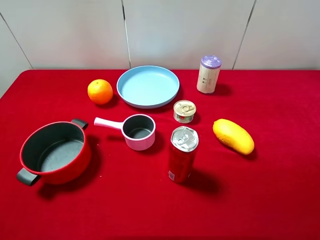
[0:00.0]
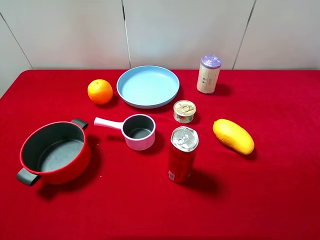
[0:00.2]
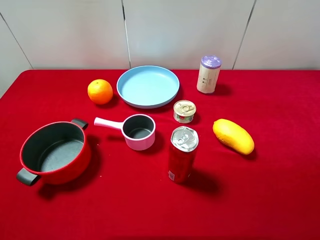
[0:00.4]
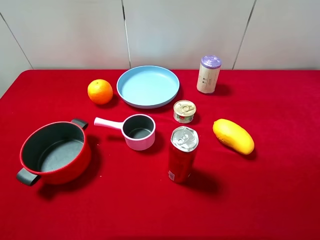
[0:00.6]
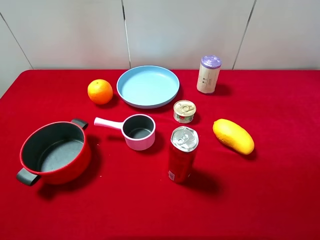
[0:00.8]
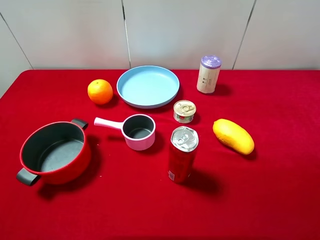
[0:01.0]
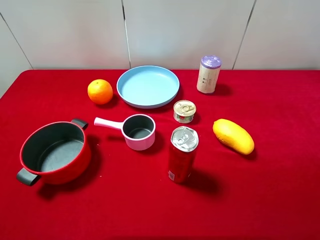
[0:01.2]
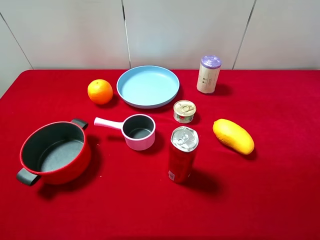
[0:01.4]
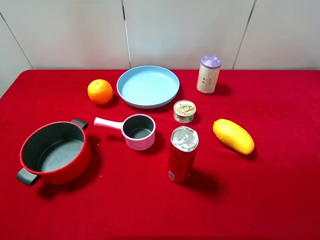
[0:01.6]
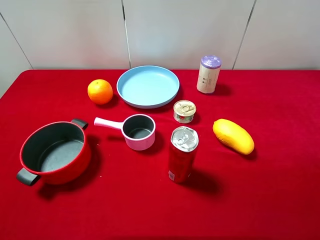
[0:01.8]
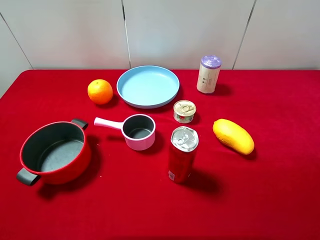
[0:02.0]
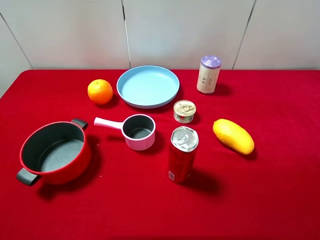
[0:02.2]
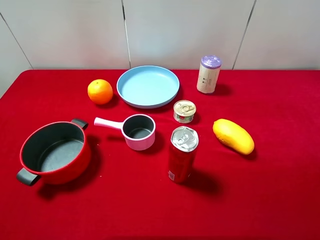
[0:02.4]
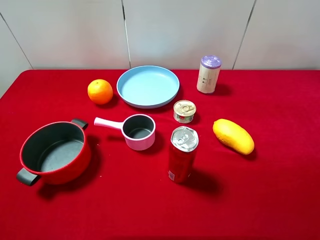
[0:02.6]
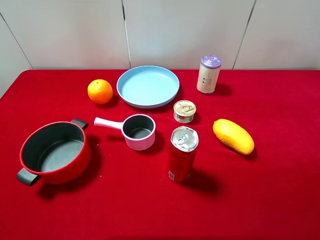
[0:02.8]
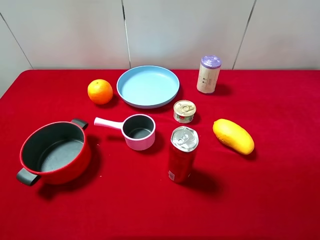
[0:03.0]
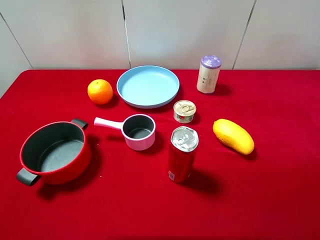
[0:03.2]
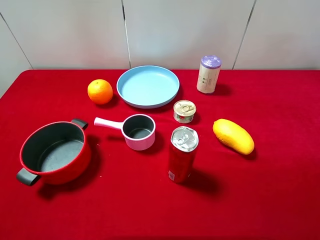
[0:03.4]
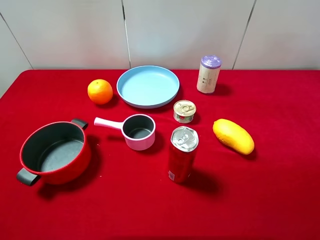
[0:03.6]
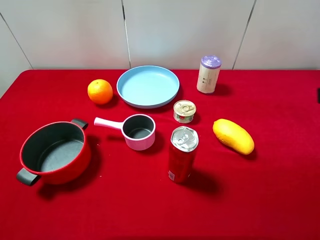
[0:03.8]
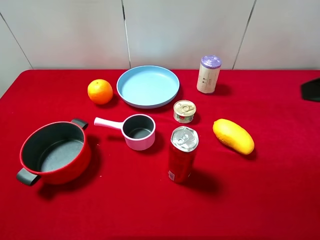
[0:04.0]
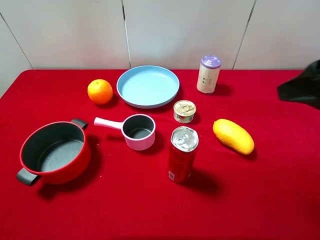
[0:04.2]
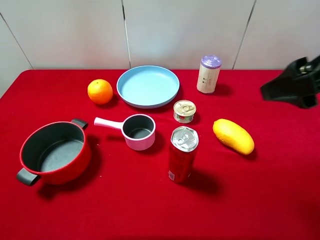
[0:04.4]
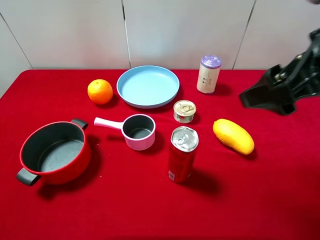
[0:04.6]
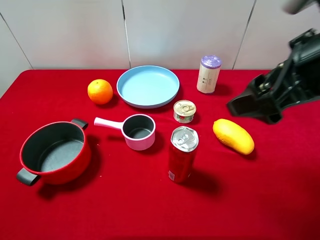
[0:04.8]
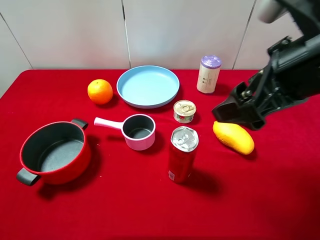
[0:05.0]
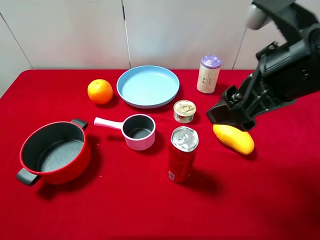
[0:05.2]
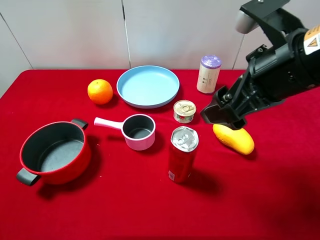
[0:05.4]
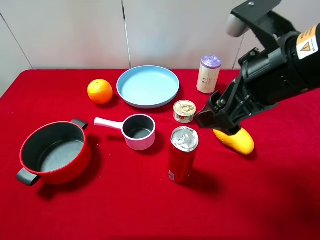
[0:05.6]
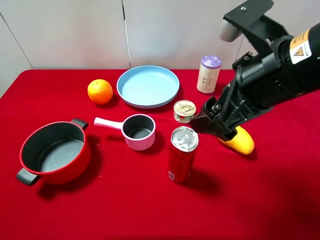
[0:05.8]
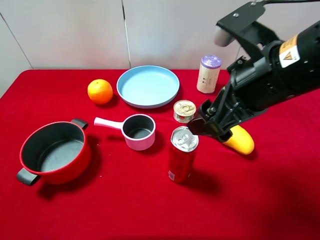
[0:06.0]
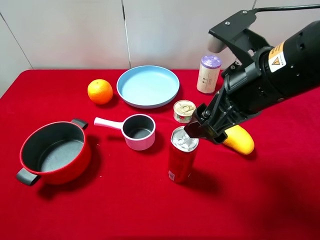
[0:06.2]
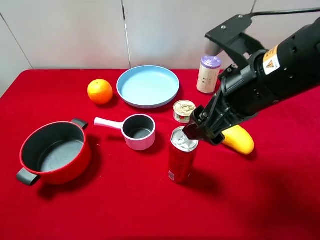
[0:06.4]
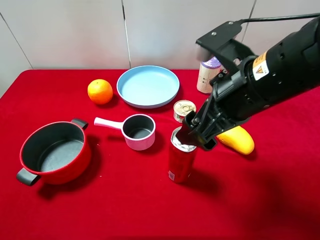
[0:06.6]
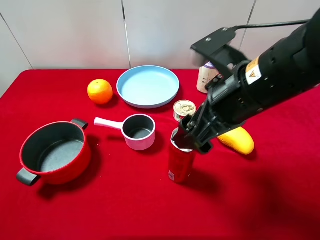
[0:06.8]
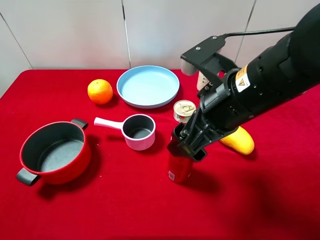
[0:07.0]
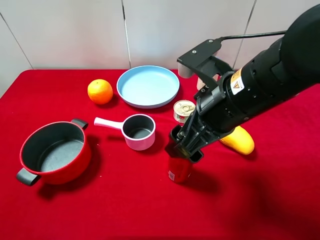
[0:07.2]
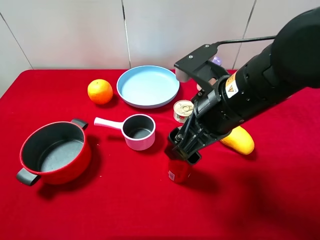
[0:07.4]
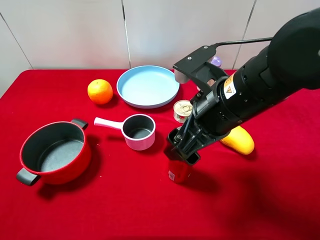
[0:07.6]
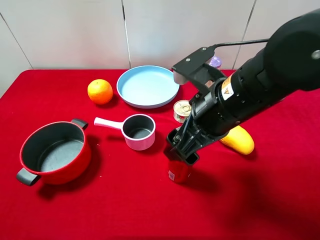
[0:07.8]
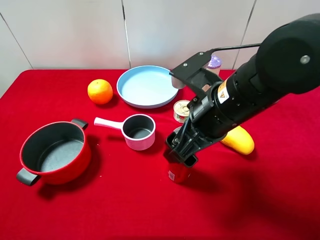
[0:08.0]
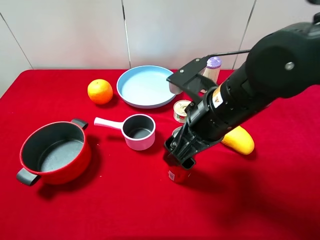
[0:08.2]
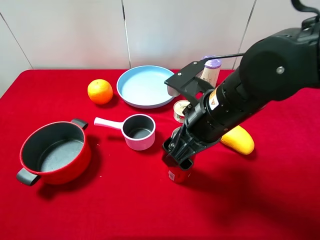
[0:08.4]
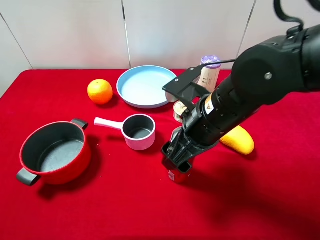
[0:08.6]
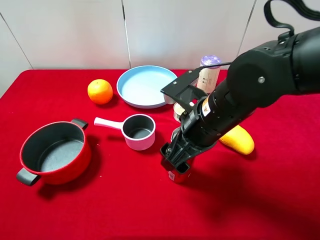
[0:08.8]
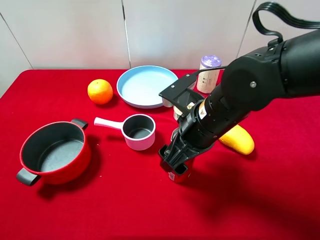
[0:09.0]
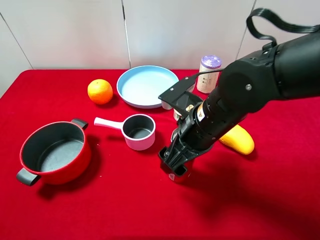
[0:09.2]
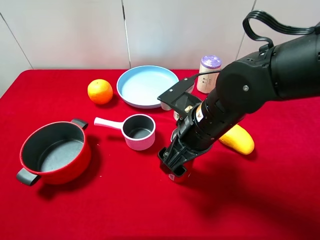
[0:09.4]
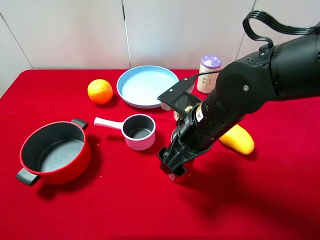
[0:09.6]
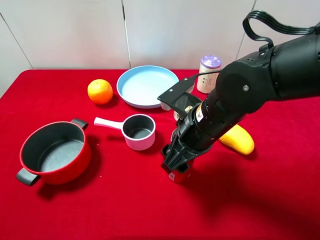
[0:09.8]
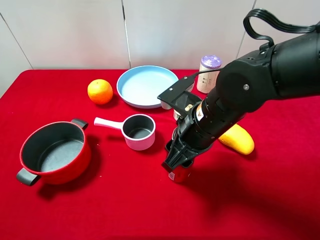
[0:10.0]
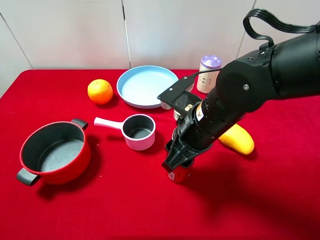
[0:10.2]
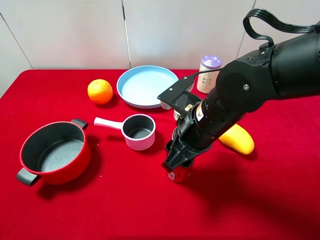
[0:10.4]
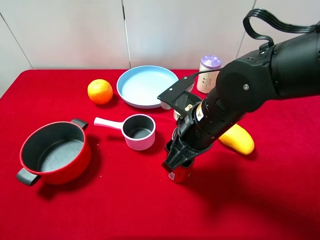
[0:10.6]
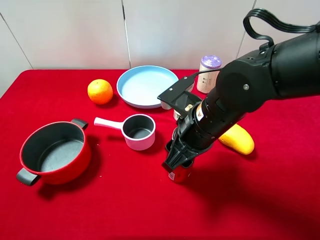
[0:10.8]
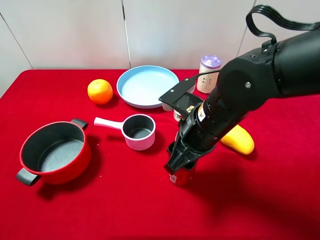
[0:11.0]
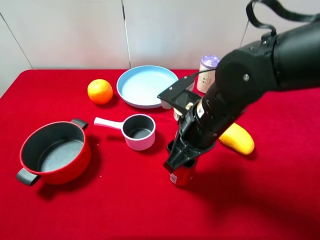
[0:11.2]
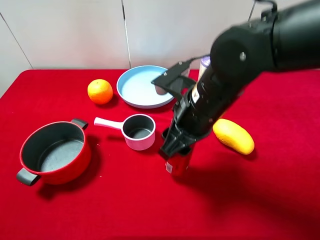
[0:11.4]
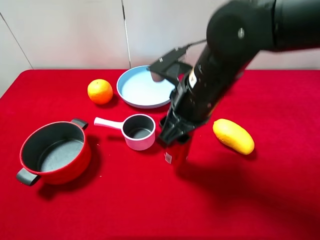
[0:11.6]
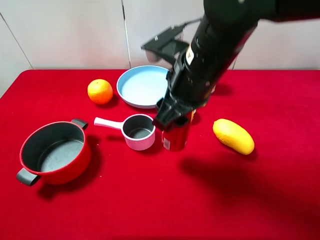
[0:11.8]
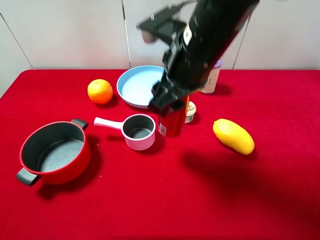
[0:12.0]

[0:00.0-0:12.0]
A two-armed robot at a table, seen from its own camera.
Task of the whole recording: pick up an item with a gripper and place it in a random container on the desktop.
0:00.0 to 0:01.6: The two grippers keep their place.
0:03.0 to 0:04.4: The right gripper goes roughly 10 cm forward and to the left.
0:04.4 to 0:06.0: The right gripper goes about 10 cm to the left.
0:06.0 to 0:07.6: The right gripper ends up approximately 5 cm from where it was.
0:07.6 to 0:09.0: The right gripper moves downward, some 5 cm.
0:09.0 to 0:10.4: The right gripper closes.
0:10.4 to 0:12.0: The right gripper travels upward by approximately 10 cm.

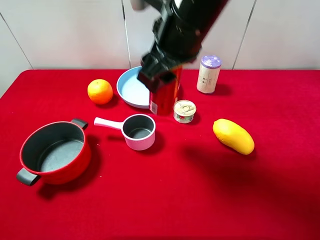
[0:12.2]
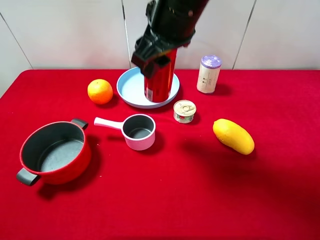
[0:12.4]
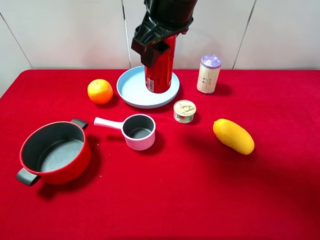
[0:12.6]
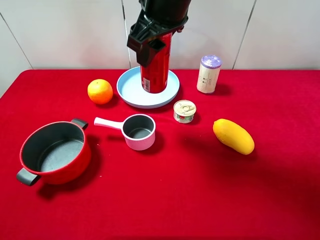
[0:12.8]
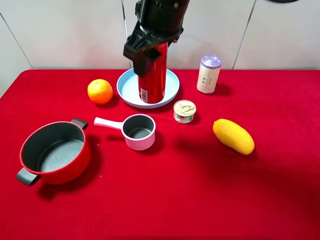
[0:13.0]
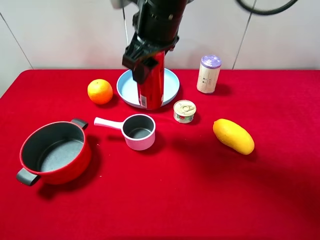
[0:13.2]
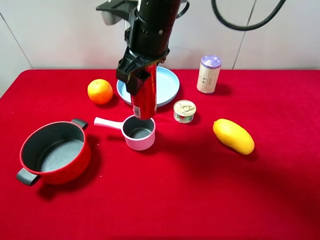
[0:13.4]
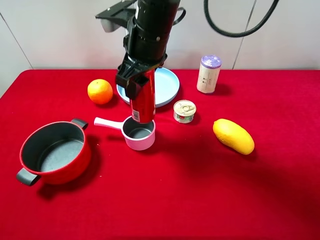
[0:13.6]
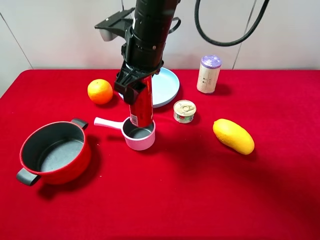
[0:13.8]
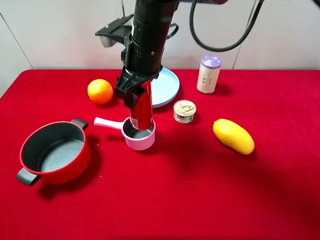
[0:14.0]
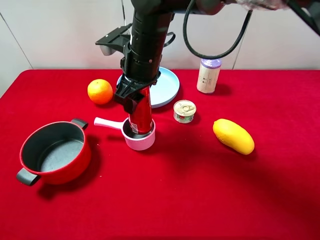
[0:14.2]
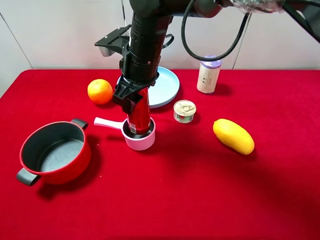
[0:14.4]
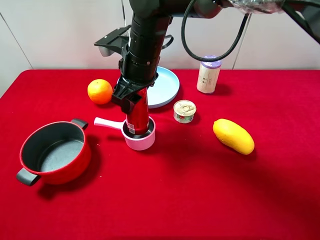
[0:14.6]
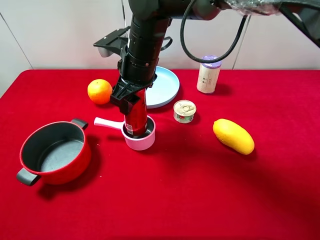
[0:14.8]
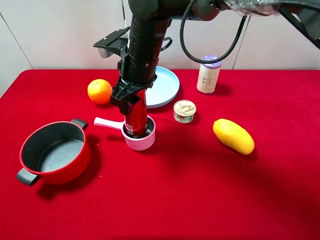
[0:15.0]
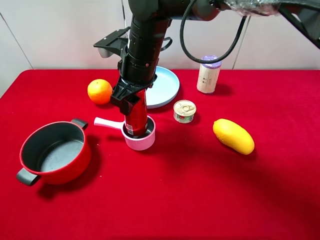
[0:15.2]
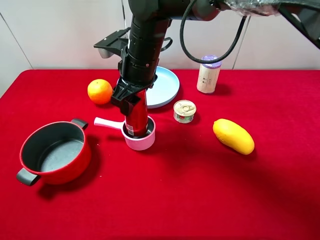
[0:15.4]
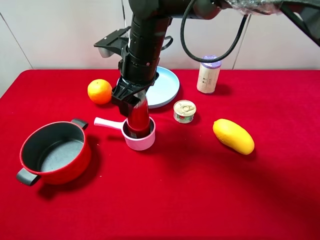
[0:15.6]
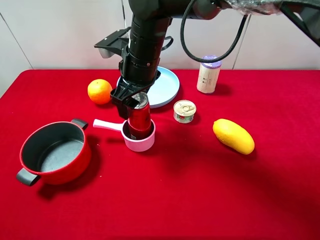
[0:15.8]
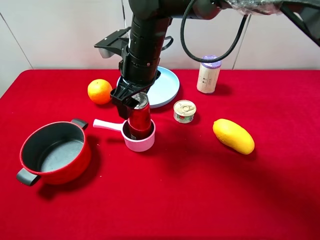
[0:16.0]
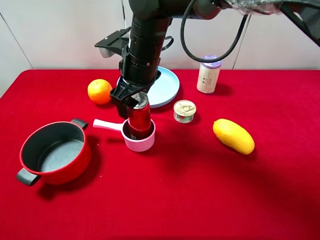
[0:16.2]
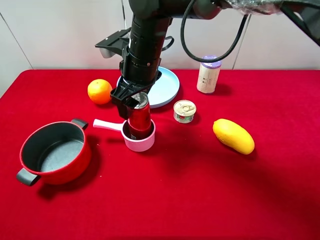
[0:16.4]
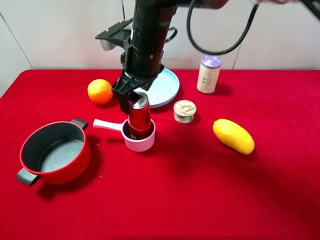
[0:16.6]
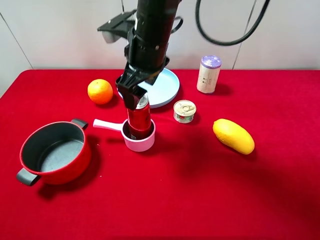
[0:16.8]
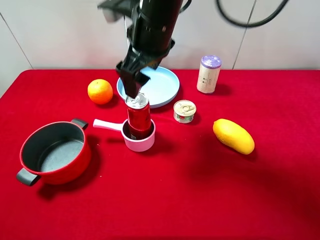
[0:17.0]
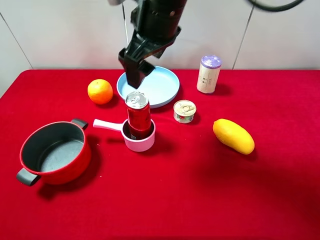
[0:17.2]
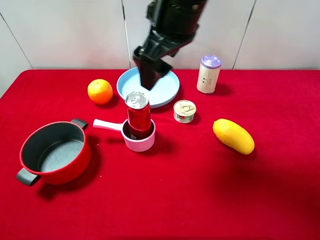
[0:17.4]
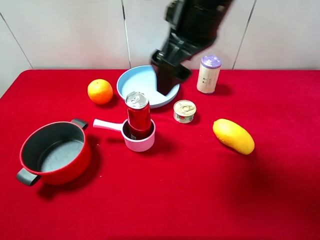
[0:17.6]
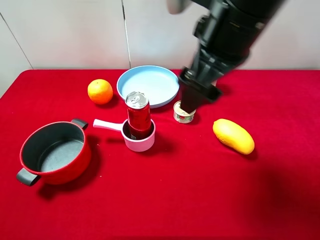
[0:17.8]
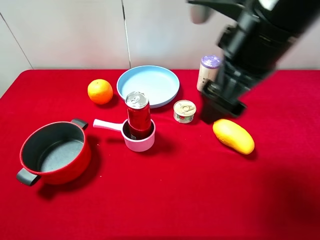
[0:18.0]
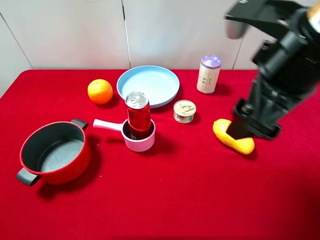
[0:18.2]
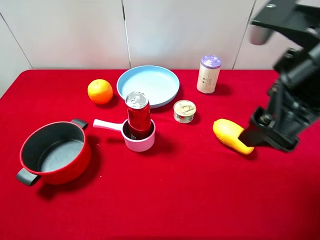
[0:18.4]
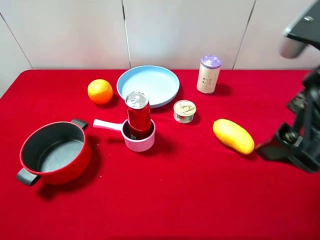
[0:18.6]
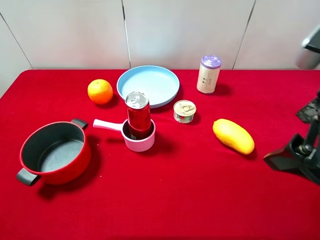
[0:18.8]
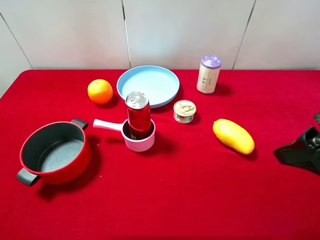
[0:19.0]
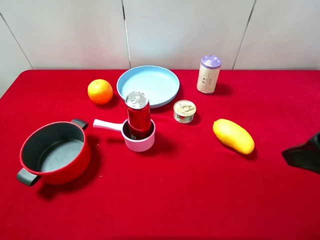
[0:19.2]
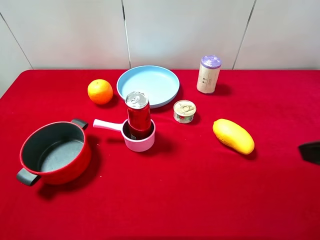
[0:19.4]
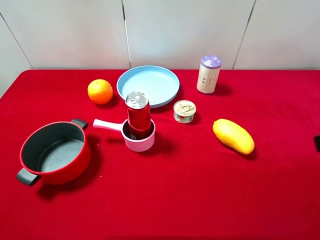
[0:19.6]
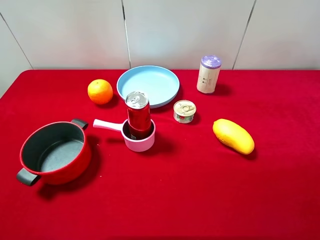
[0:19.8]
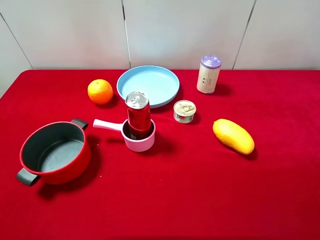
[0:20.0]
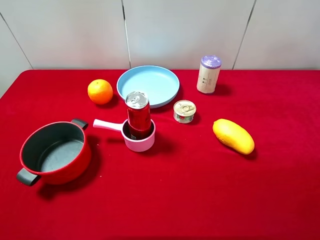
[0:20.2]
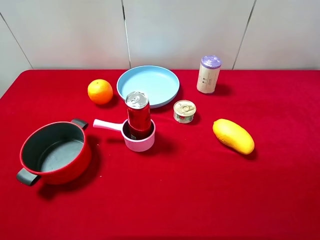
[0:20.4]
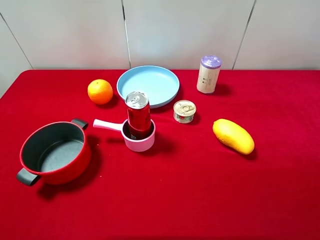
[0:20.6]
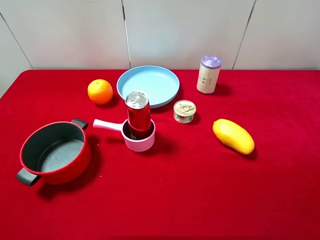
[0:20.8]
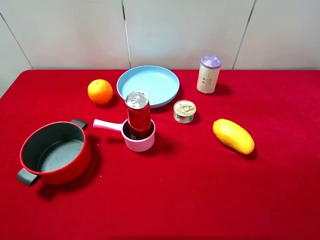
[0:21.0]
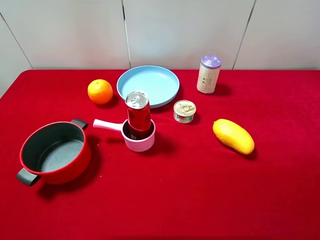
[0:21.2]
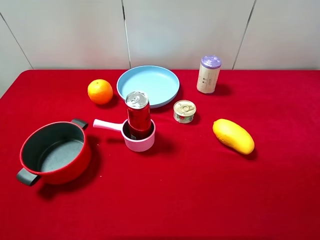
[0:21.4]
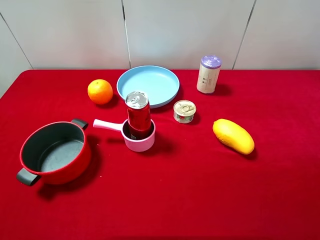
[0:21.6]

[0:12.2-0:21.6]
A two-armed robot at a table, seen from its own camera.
Task of the whole recording: pick up an item with a gripper and place it in a random container on the desktop.
0:12.2 to 0:13.8: The right gripper heads downward, to the left and forward, covering roughly 10 cm.
0:13.8 to 0:15.4: The grippers make only small movements.
0:15.4 to 0:17.0: The right gripper is displaced upward by some 10 cm, and opens up.
0:17.0 to 0:18.4: The right gripper travels to the right and backward by approximately 25 cm.
0:18.4 to 0:20.0: The right gripper heads to the right and backward, covering some 15 cm.
